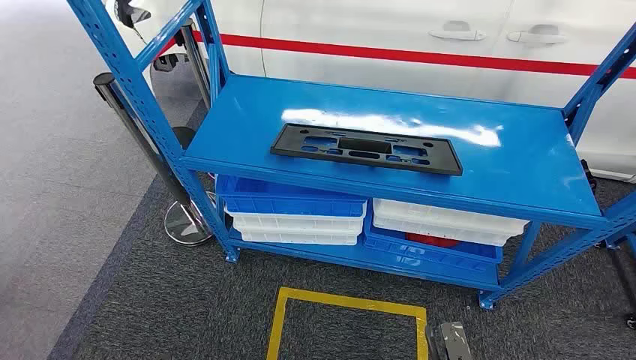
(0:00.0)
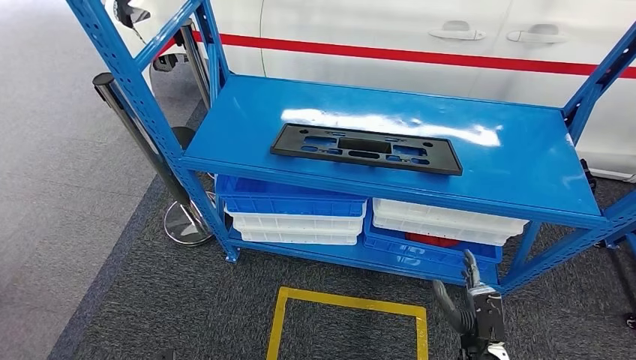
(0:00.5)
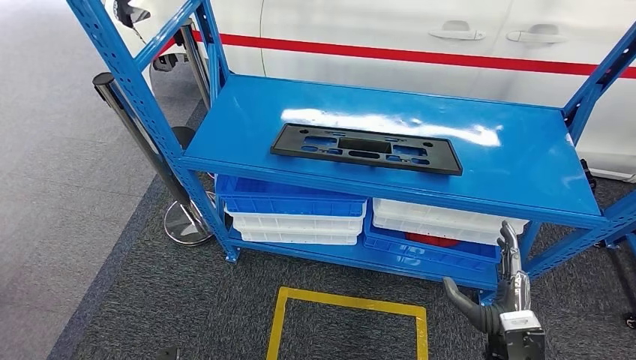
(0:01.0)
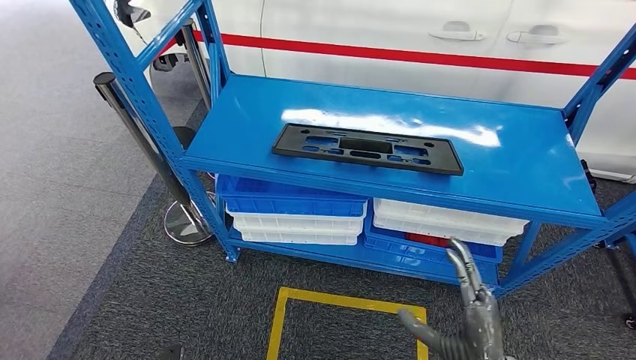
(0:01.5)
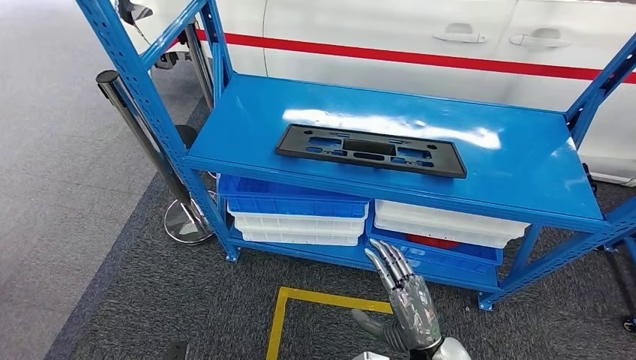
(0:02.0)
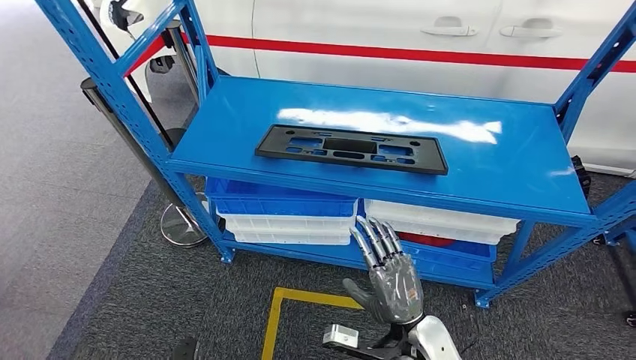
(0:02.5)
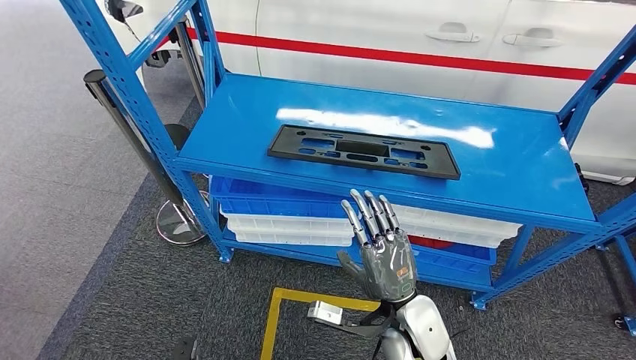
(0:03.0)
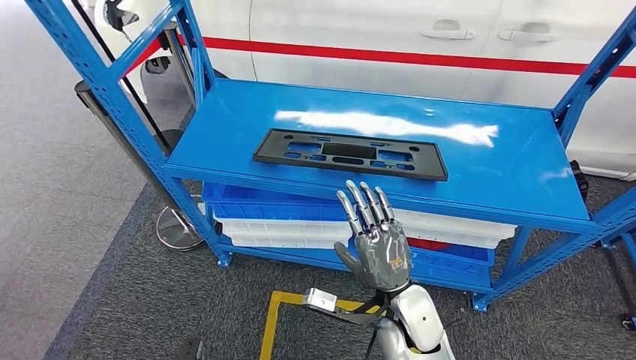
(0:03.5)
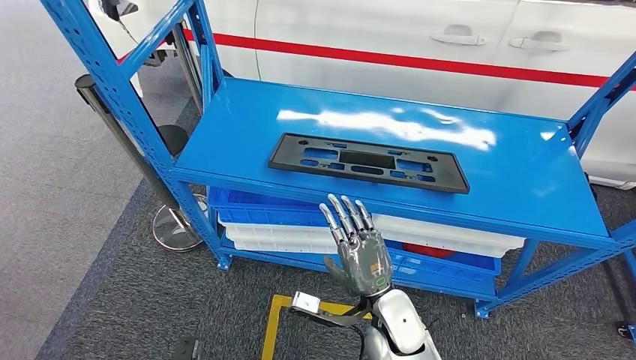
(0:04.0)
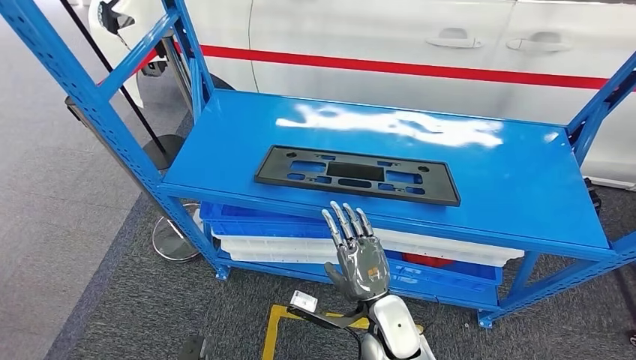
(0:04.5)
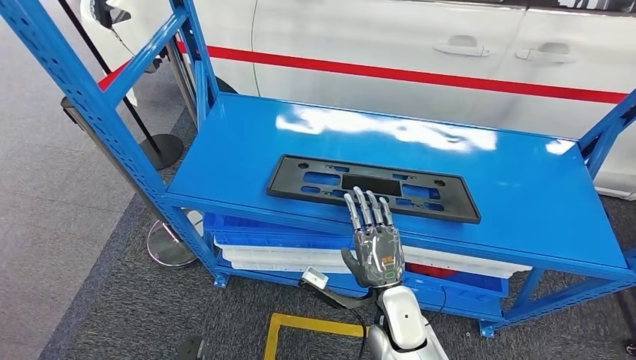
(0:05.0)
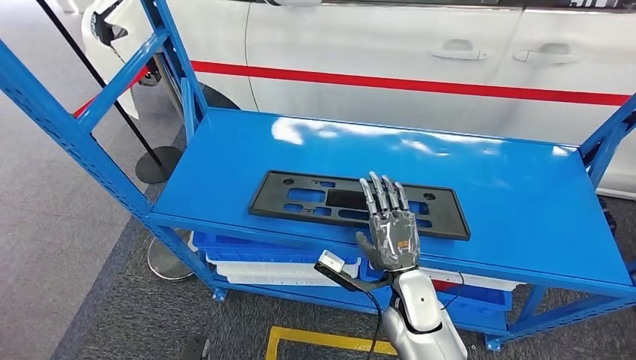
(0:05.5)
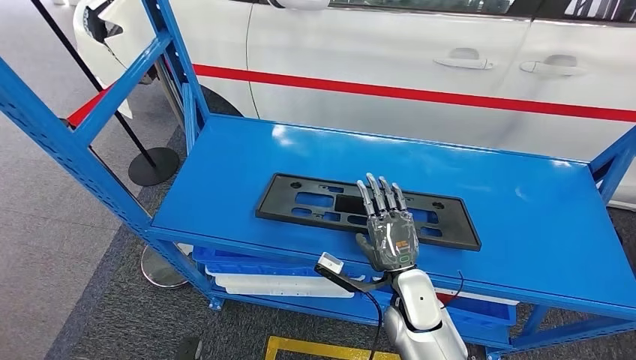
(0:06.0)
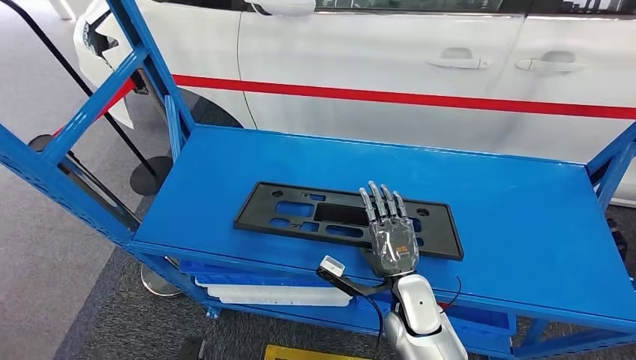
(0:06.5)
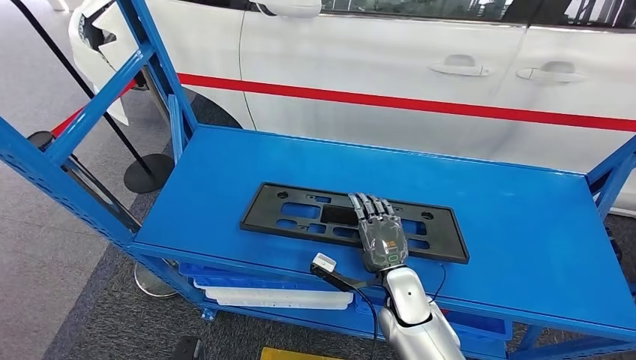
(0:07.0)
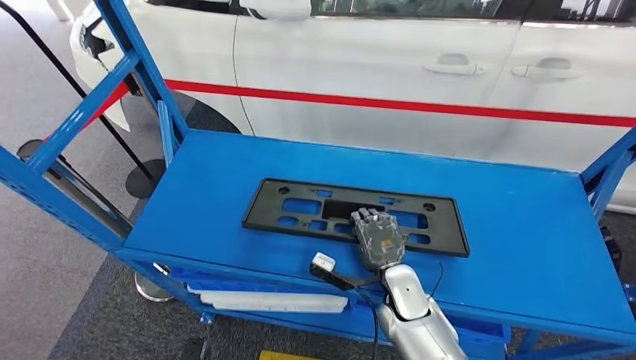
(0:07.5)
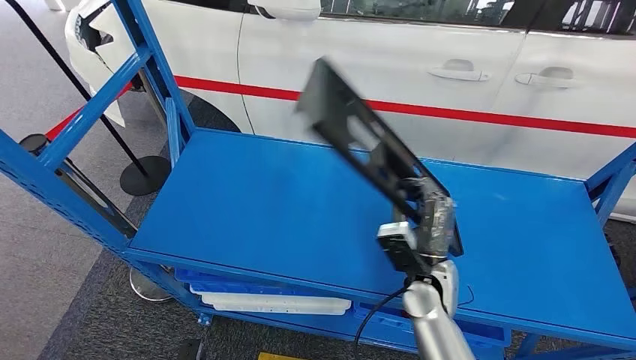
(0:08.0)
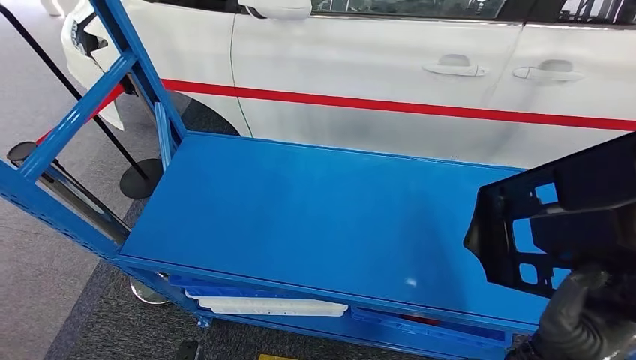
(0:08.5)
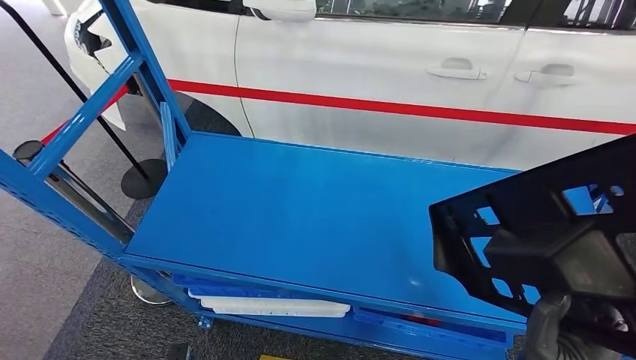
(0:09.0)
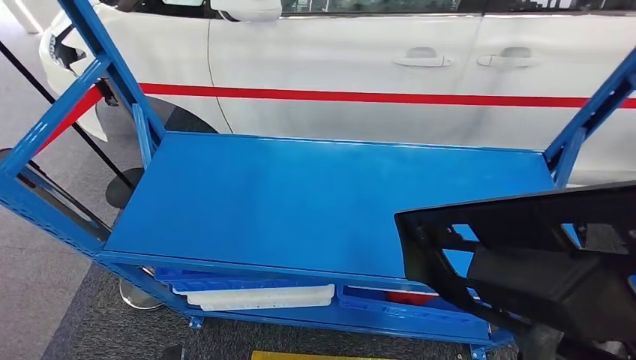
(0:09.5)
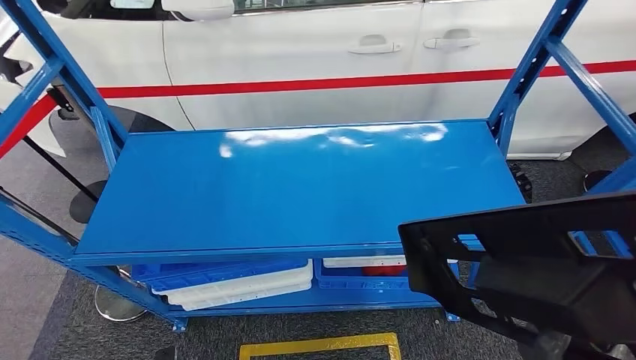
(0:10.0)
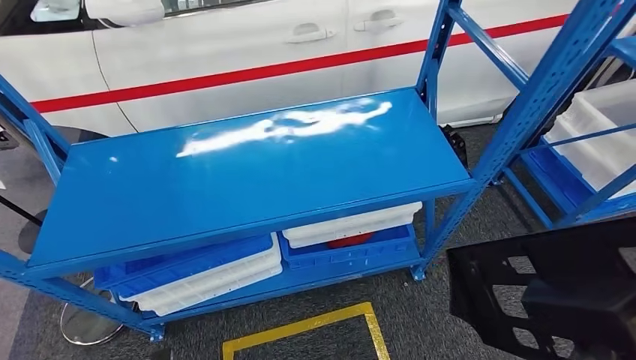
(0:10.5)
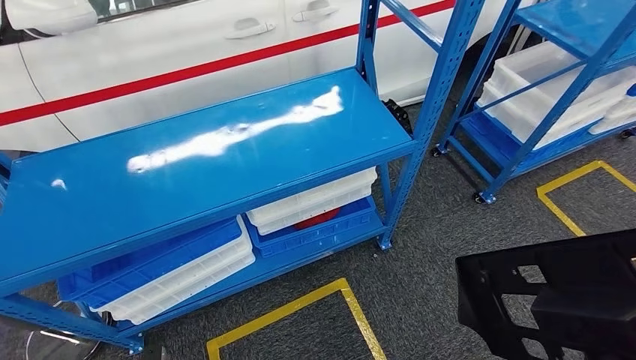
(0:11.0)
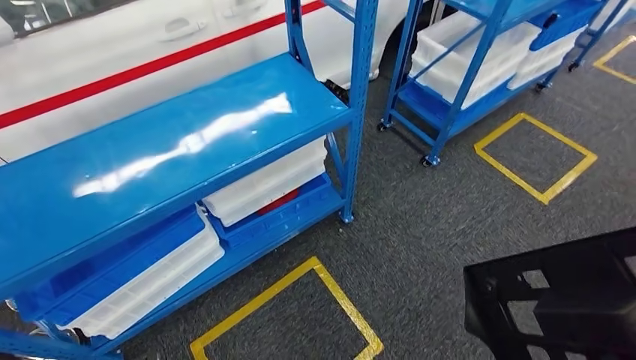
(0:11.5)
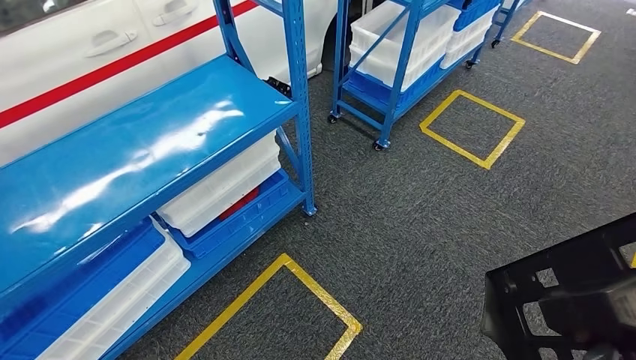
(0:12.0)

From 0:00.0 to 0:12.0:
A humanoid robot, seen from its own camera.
Step, from 0:00.0 to 0:09.5: Pick up the large material from the shelf.

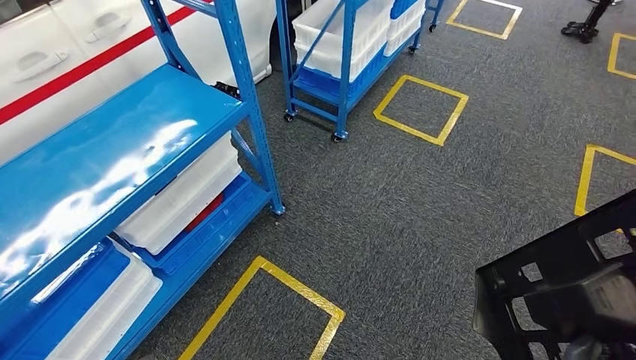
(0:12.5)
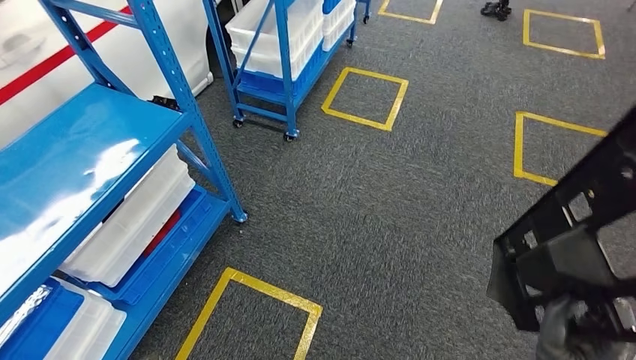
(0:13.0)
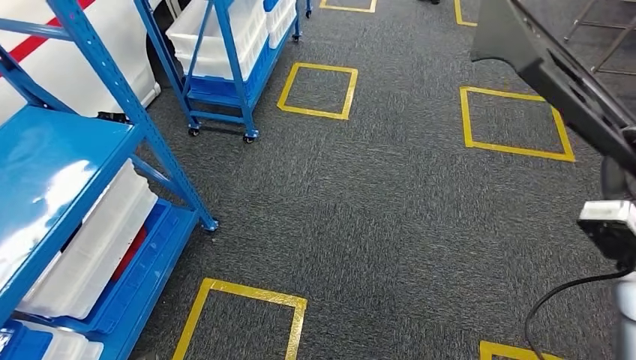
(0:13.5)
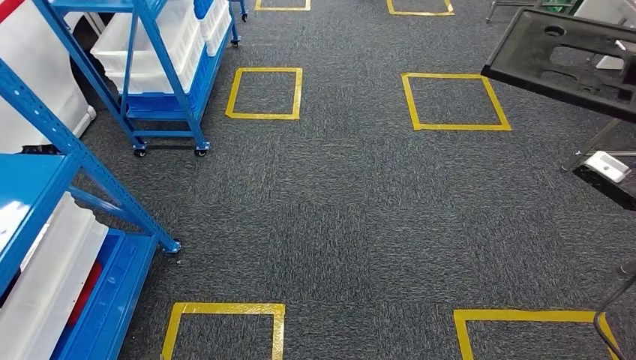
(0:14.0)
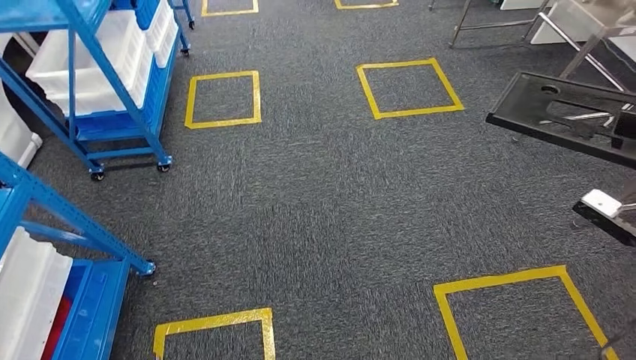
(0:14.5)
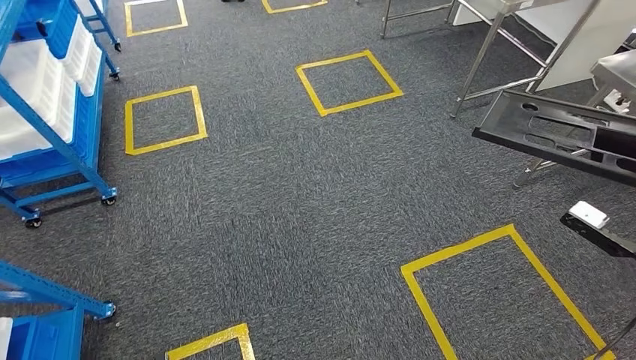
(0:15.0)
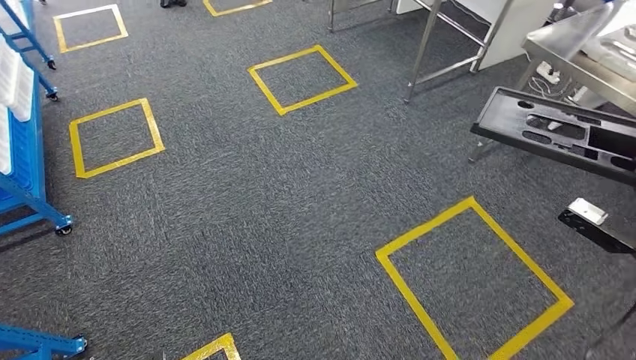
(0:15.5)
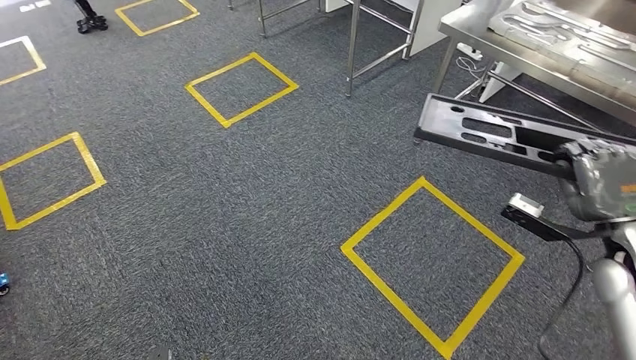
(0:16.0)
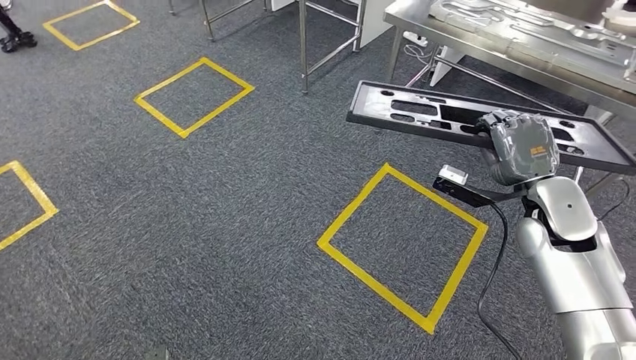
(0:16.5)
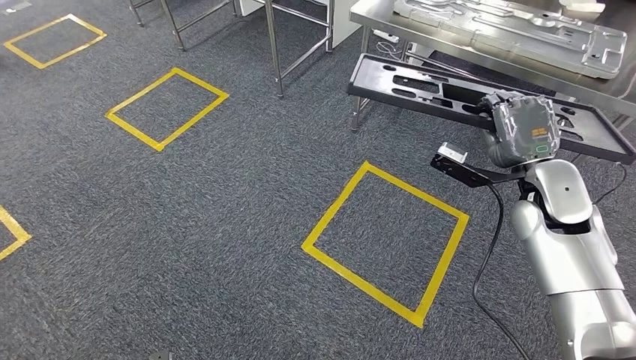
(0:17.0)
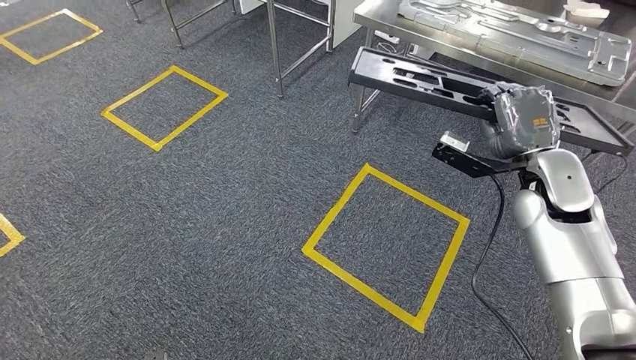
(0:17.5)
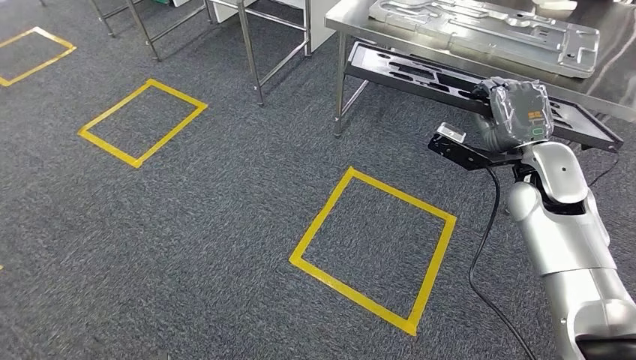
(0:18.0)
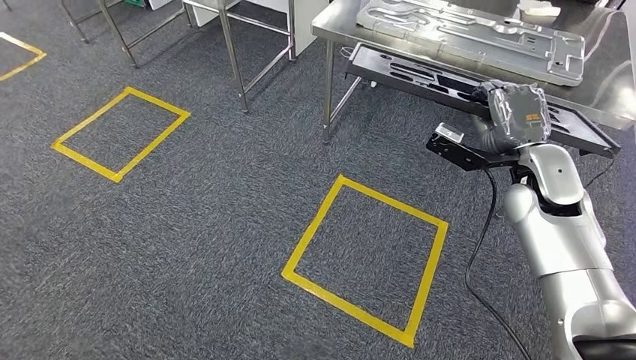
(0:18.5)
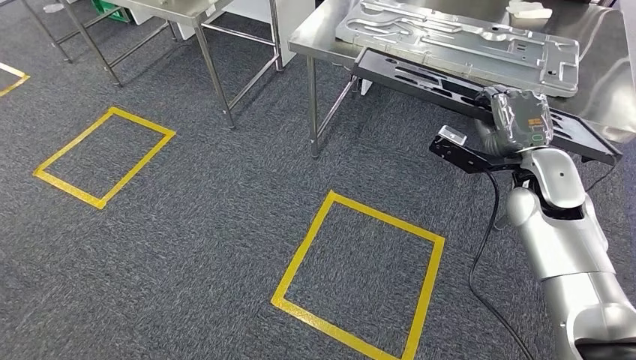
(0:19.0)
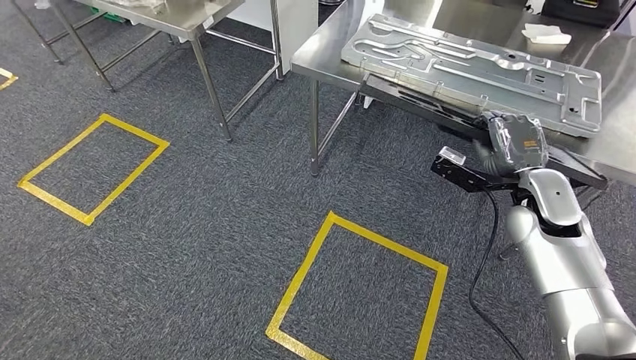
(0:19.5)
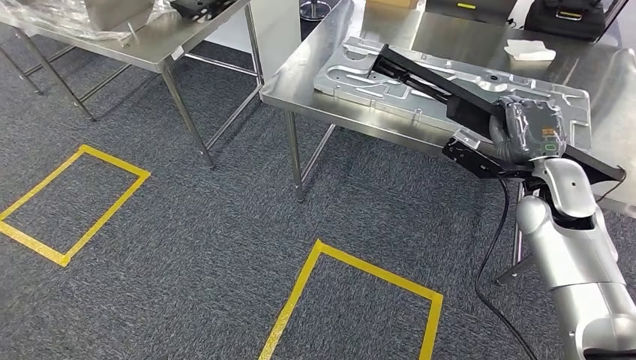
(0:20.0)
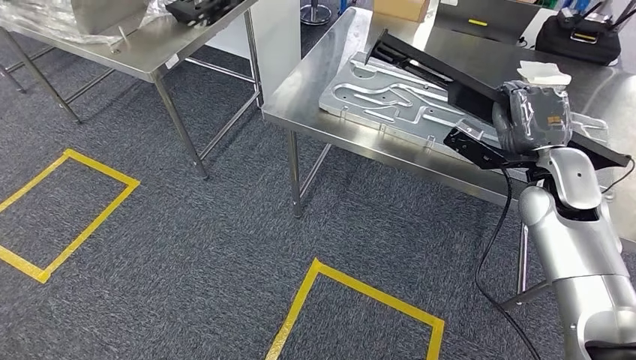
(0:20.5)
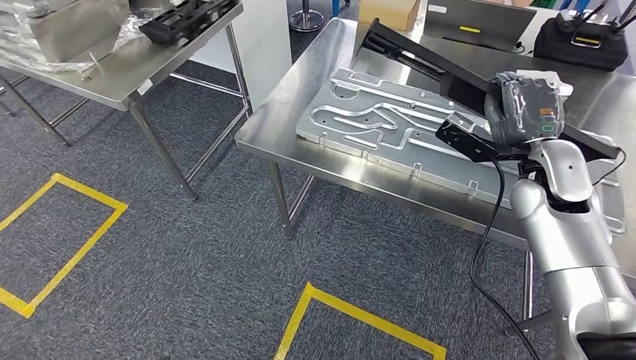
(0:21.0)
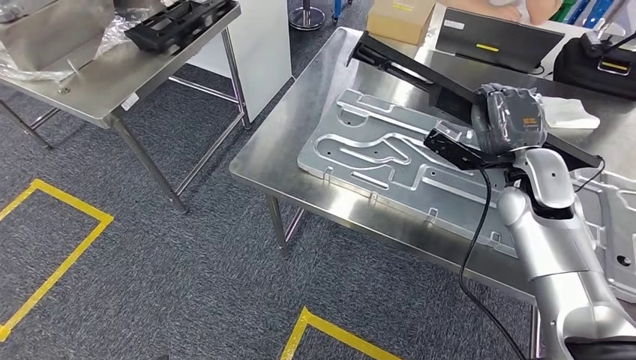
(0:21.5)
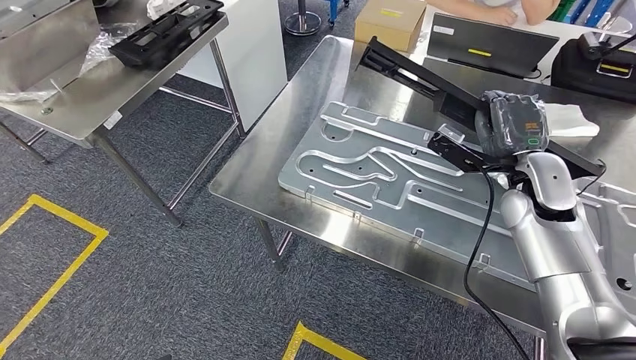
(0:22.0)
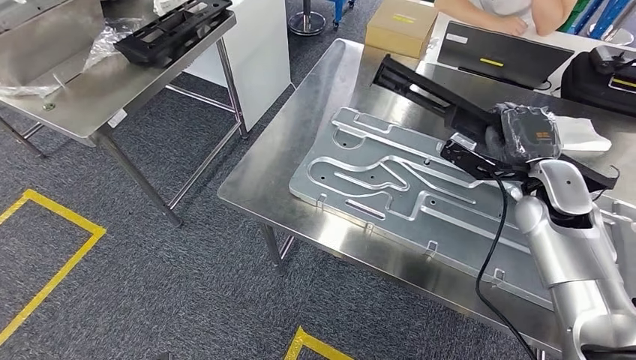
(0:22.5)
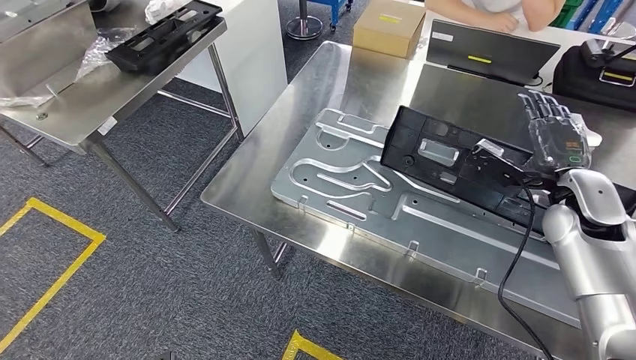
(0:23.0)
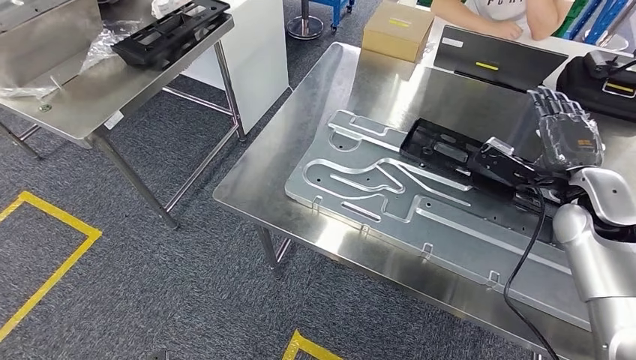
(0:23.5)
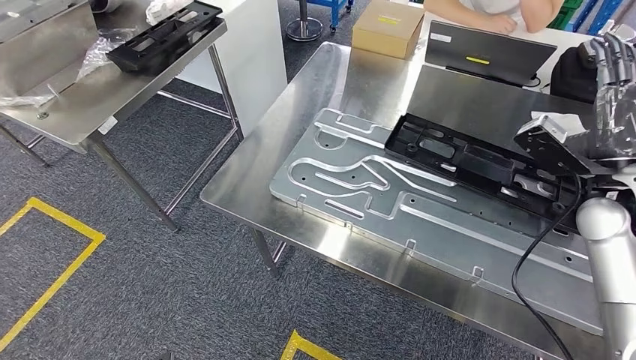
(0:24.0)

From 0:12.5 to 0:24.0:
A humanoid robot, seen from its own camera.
Step, from 0:13.5 to 0:19.5: Move the large material to the workbench.
